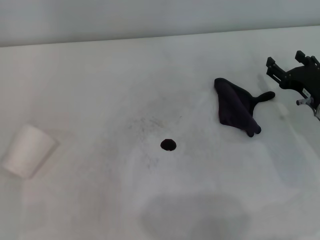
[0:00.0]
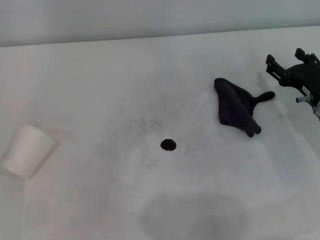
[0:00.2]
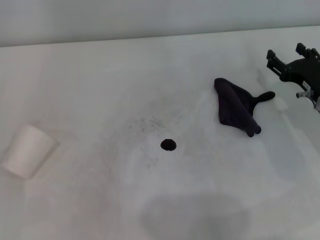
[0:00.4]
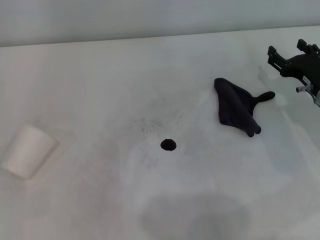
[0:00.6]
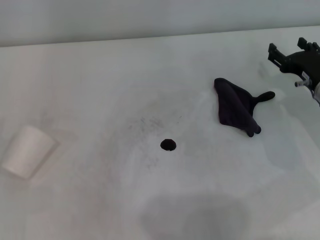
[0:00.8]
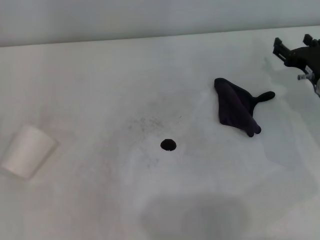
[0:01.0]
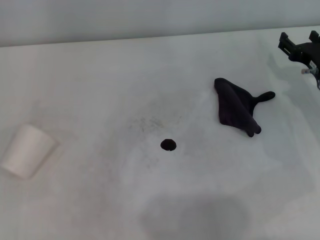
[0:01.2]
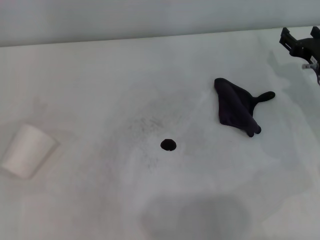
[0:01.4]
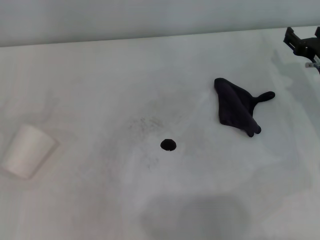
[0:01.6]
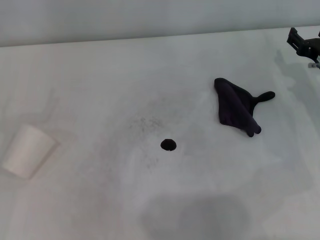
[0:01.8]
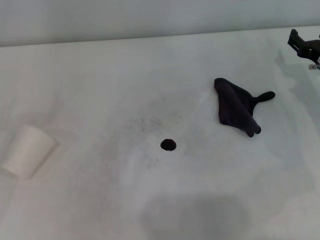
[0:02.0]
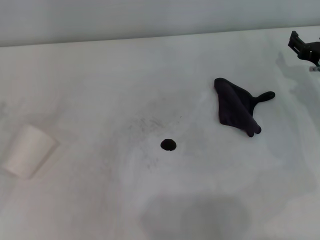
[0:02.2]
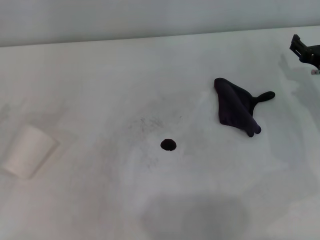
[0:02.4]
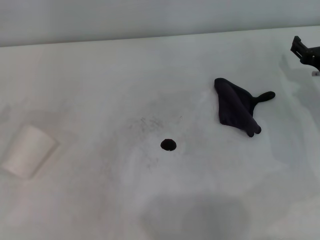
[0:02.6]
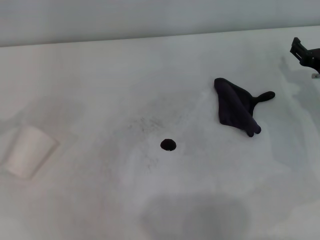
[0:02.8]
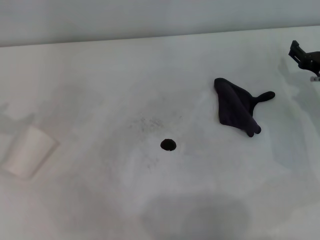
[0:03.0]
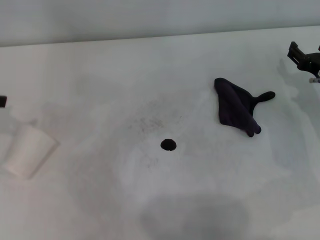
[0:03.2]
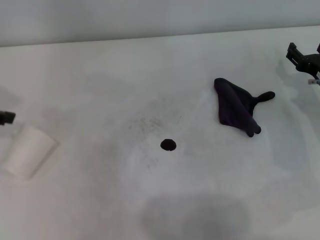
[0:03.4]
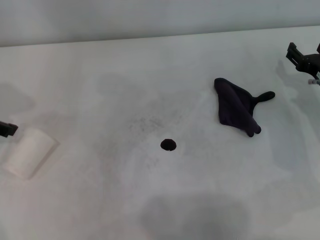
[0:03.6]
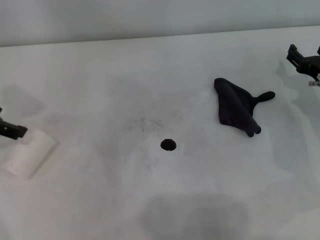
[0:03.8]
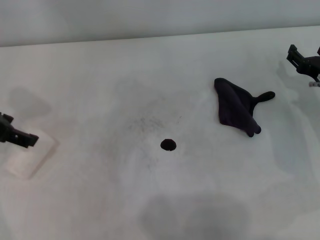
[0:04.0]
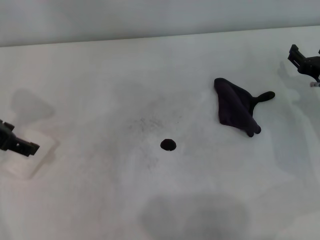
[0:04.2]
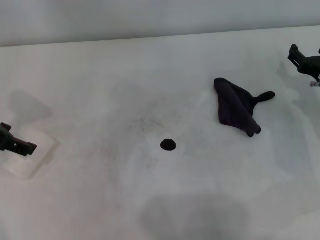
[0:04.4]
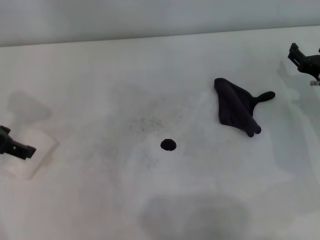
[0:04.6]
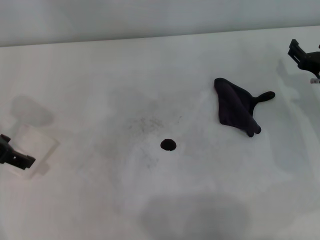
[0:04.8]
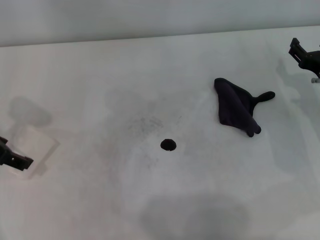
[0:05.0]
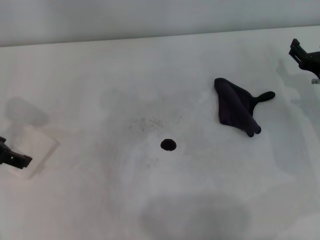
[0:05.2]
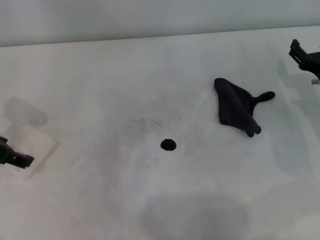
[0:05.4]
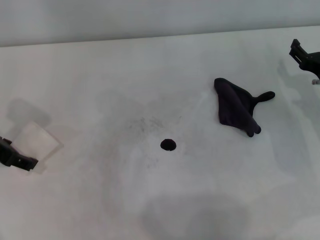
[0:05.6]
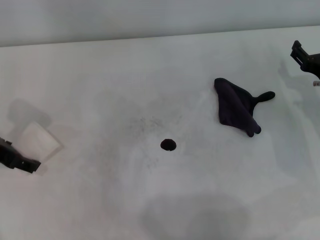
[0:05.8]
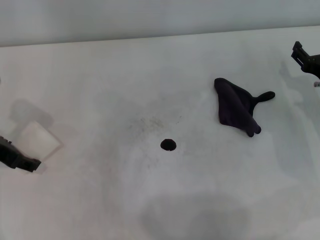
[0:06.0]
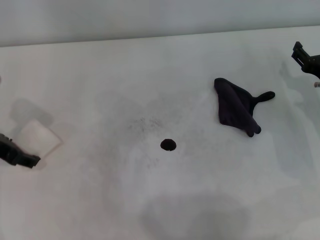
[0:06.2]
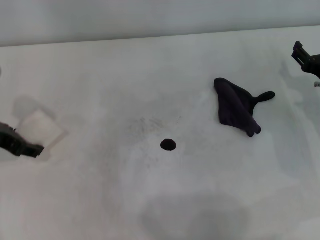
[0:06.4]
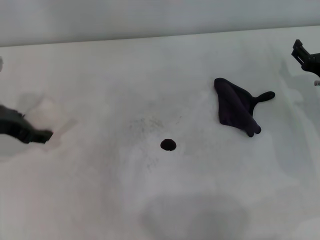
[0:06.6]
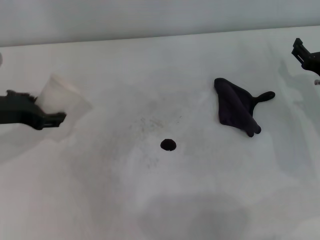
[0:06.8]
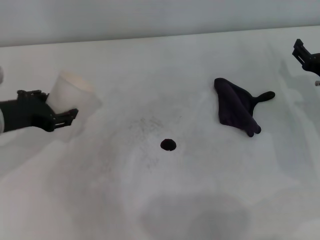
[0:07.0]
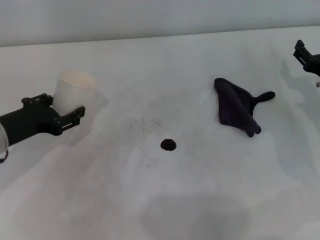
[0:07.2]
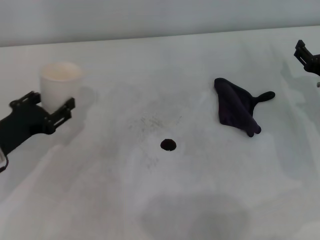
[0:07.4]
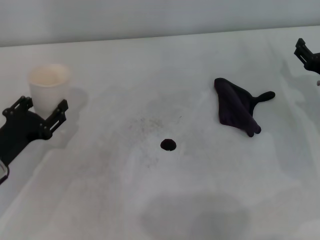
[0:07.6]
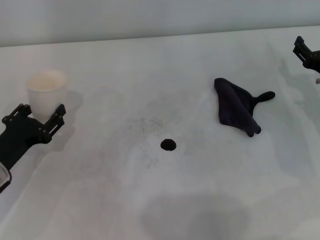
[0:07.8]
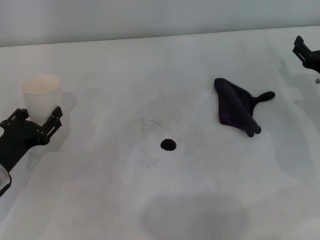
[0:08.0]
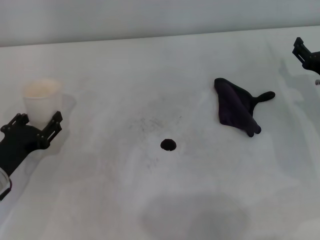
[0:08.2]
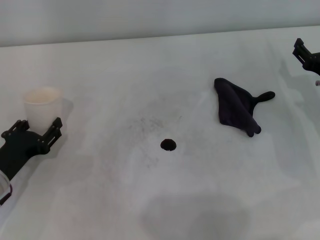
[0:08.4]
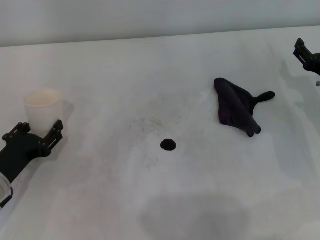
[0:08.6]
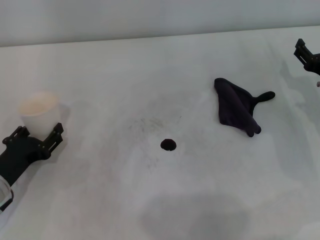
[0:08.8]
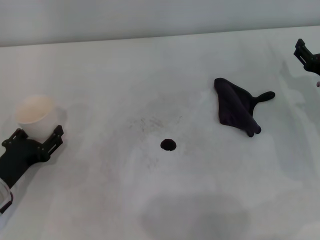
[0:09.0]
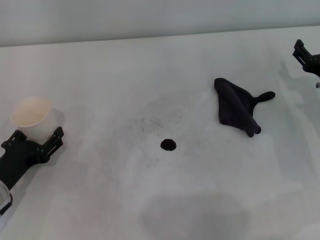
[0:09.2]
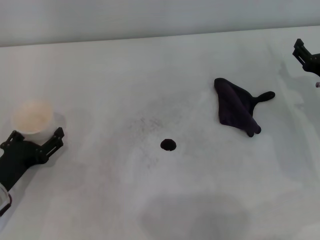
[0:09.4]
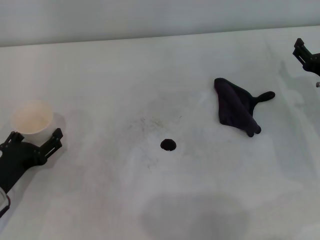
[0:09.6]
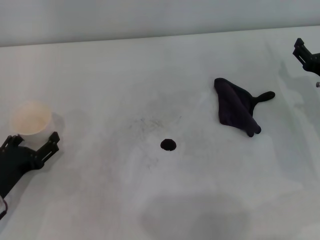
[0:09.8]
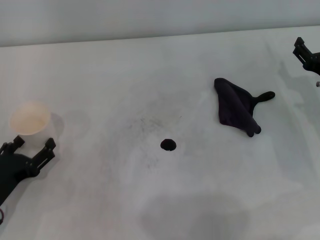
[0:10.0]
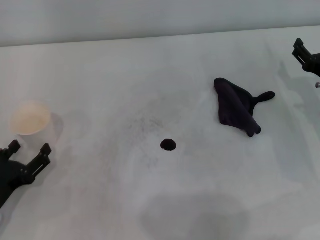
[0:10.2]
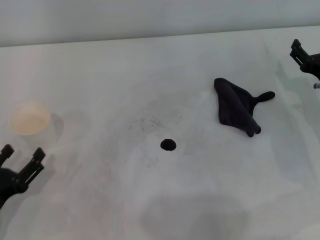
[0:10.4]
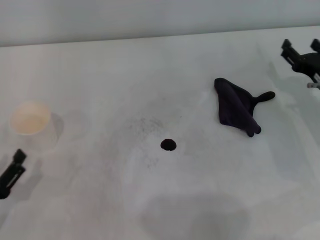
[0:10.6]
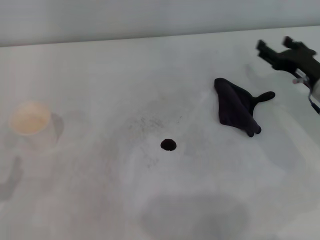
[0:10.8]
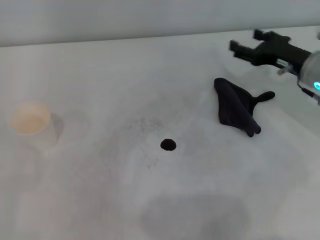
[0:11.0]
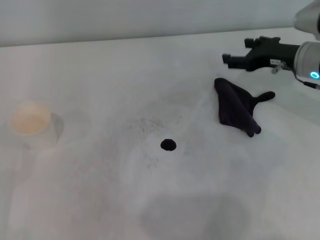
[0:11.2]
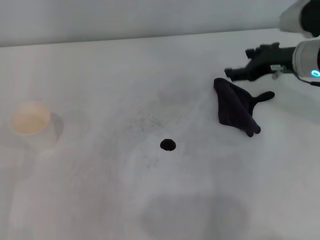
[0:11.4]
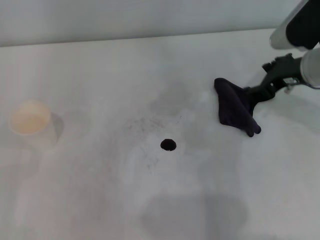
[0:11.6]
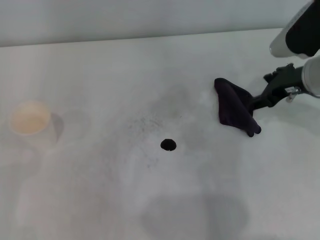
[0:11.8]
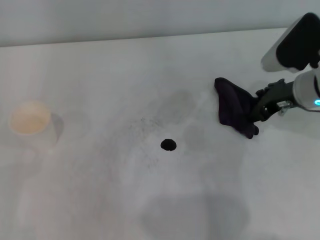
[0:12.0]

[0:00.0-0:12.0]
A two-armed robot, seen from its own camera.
Step, 0:00.0 to 0:06.0: Grasp the paper cup with the left gripper.
Step, 0:06.4 to 0:09.8: Stand the paper cup upright with the left gripper.
0:00.0 to 0:01.6: The right gripper travels forward by about 5 cm.
0:03.0 to 0:04.4: The left gripper heads to the right, covering approximately 10 cm.
0:04.4 to 0:06.0: The left gripper moves downward, roughly 5 cm.
0:06.0 to 0:07.6: The left gripper heads downward and backward, covering about 10 cm, and closes up.
0:07.6 to 0:09.0: The grippers move only a little.
0:09.0 to 0:10.4: The left gripper heads backward, covering approximately 5 cm, and opens up.
0:10.4 to 0:12.0: The right gripper is displaced upward and to the left by roughly 10 cm. Meanwhile the left gripper heads to the left, covering approximately 5 cm.

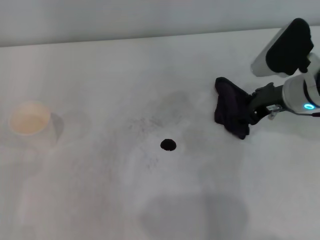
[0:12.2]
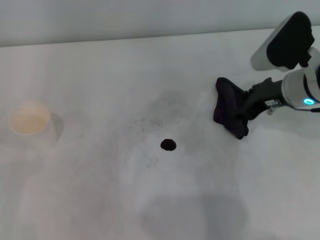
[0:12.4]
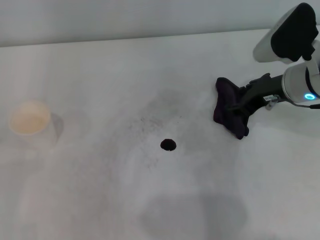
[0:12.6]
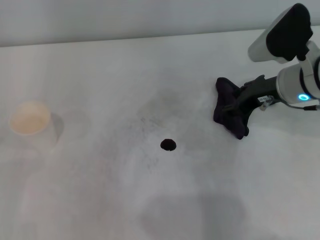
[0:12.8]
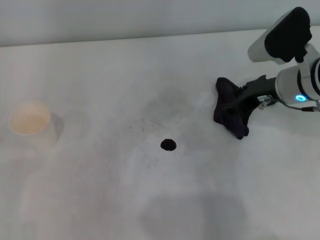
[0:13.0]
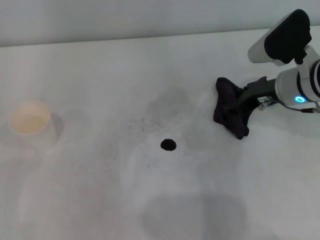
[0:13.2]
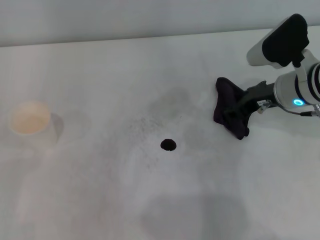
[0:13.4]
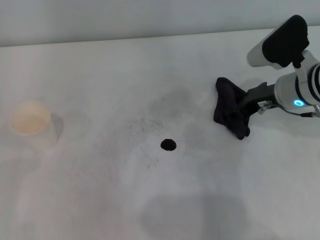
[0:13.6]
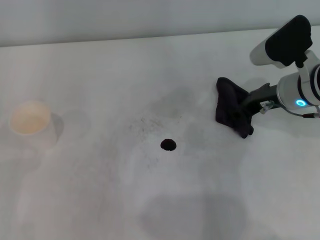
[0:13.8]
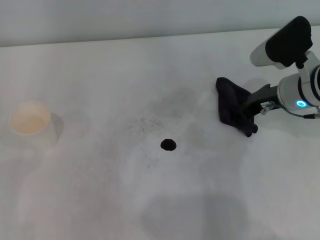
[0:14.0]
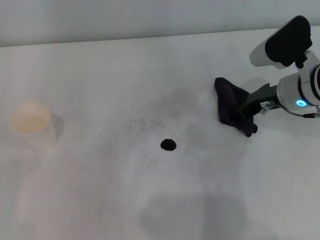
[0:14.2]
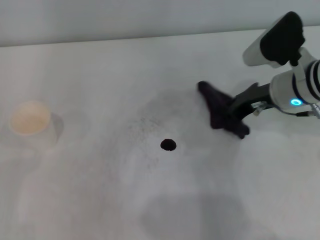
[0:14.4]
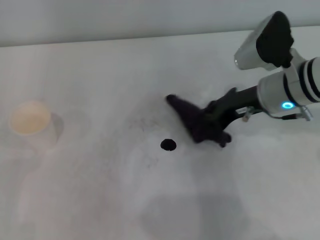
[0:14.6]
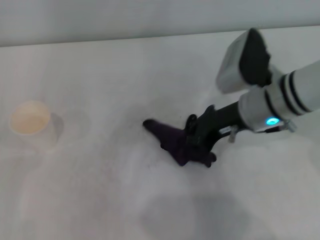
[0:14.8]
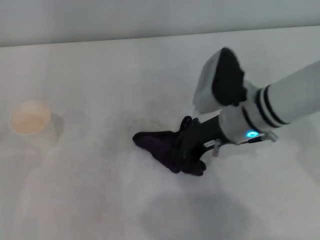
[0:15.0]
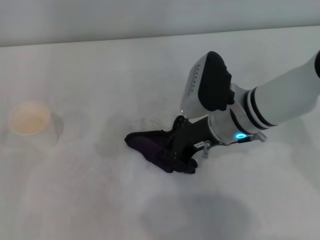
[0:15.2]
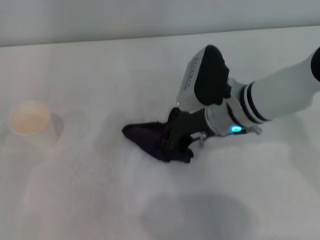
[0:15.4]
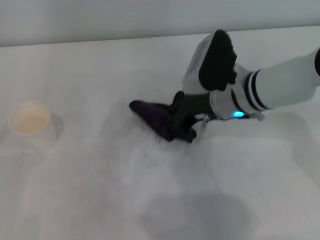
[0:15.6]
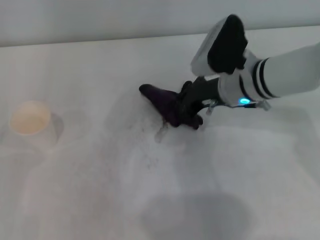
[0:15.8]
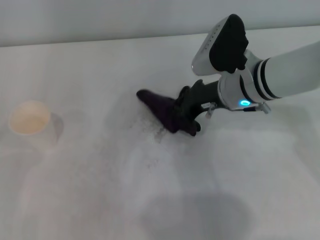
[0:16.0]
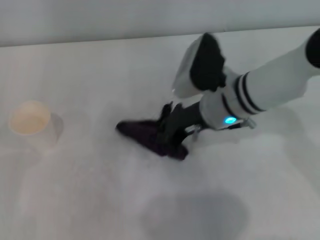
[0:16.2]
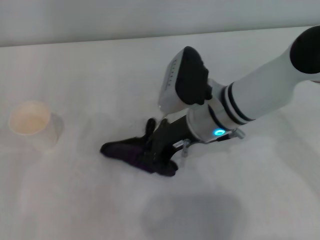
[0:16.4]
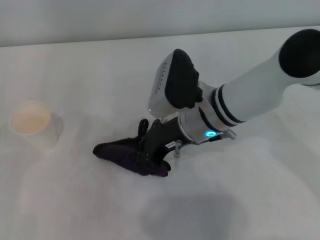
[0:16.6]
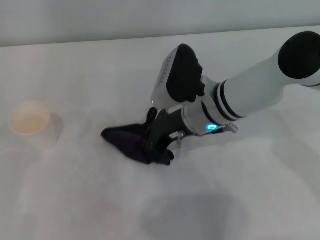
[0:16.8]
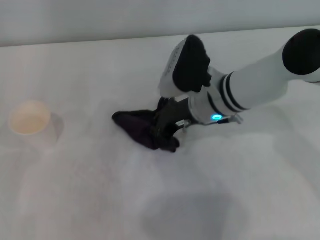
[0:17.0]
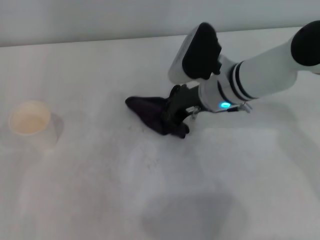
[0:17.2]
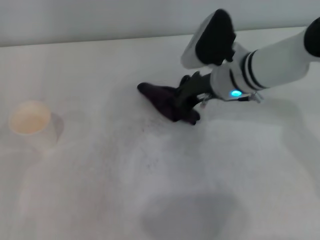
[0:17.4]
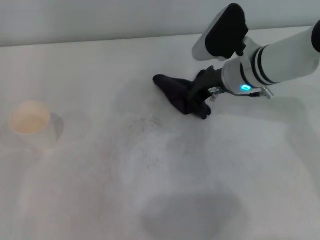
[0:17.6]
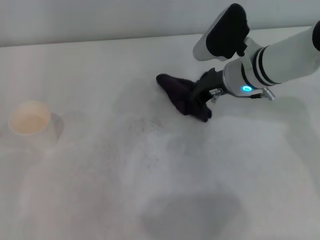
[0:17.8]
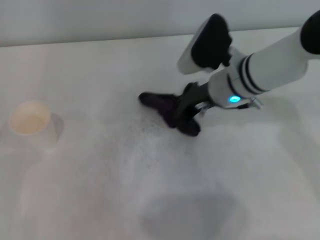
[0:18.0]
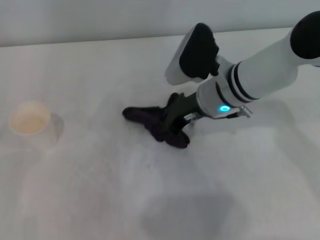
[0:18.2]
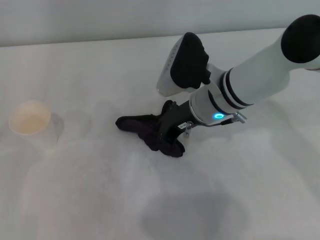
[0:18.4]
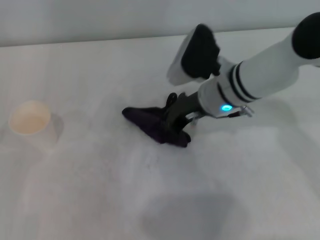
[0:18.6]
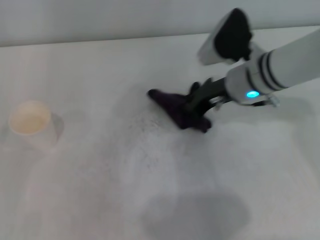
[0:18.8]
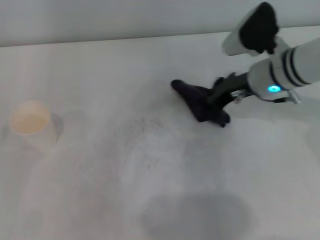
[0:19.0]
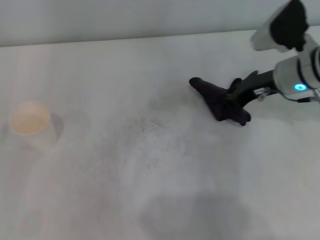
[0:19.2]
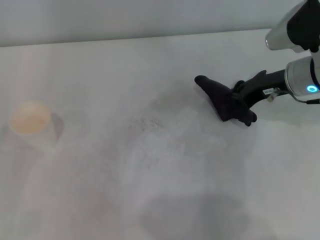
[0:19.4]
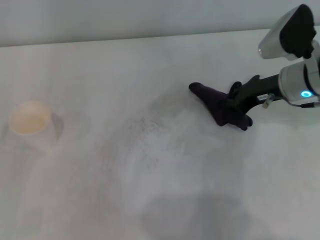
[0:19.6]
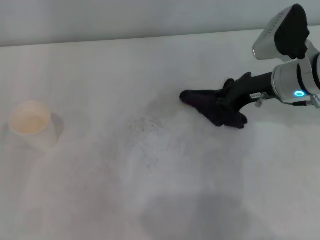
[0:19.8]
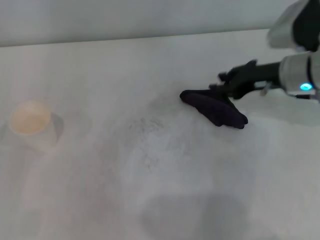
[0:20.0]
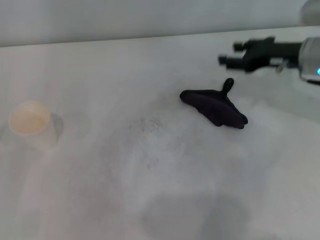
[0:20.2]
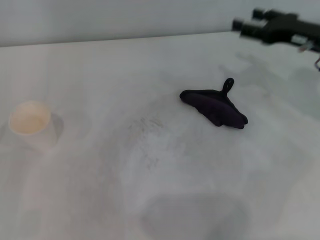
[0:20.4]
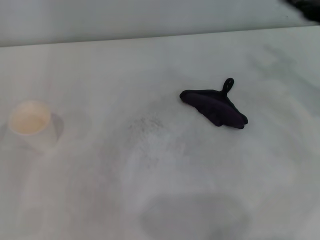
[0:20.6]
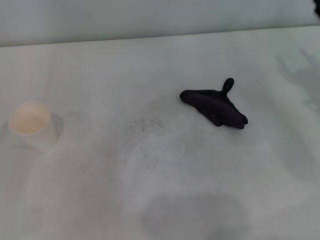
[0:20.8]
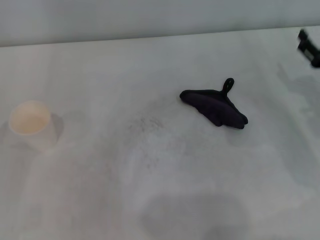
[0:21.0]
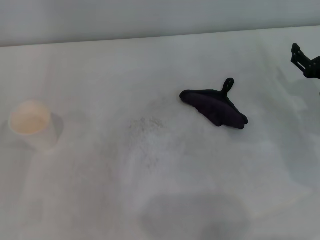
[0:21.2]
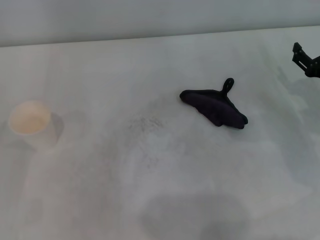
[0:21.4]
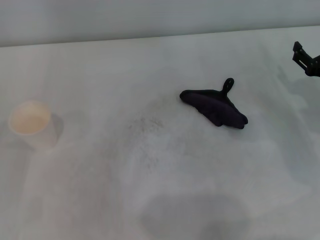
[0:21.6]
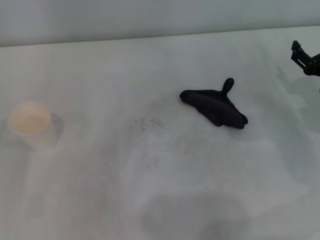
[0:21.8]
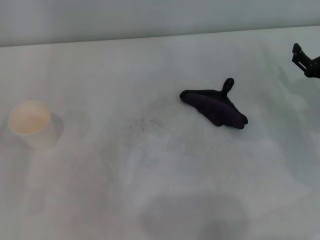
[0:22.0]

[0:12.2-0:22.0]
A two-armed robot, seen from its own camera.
Step, 0:12.4 to 0:19.0: Wipe the stains off the table with the right gripper.
Step, 0:19.2 to 0:19.8: Place the rag on the table with the right gripper.
0:12.2 to 0:13.6: The grippers stay close to where they were, moving slightly.
0:13.6 to 0:15.0: The right gripper shifts approximately 10 cm to the left, and closes.
0:15.0 to 0:16.4: There are only small adjustments of the grippers.
0:16.4 to 0:17.8: The right gripper moves to the right and forward, approximately 10 cm.
0:17.8 to 0:19.2: The right gripper travels to the right by some 10 cm.
0:19.2 to 0:20.6: The right gripper travels to the right by some 10 cm, and opens up.
0:20.6 to 0:22.0: The right gripper moves downward, approximately 10 cm.
